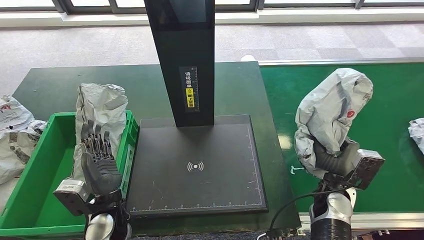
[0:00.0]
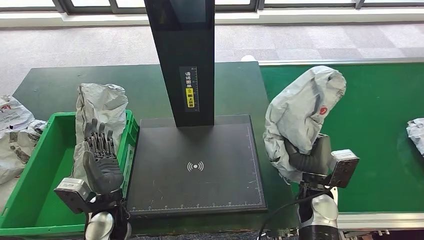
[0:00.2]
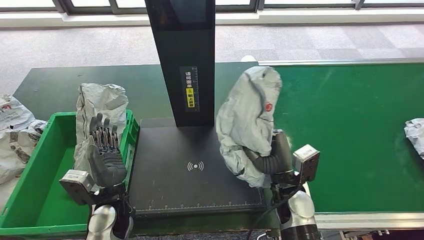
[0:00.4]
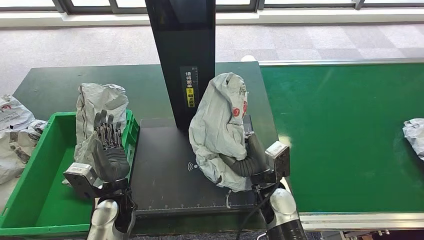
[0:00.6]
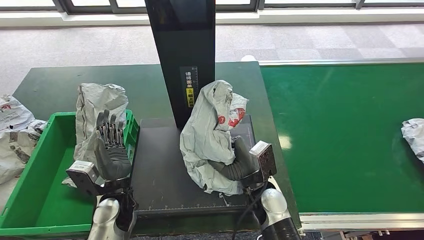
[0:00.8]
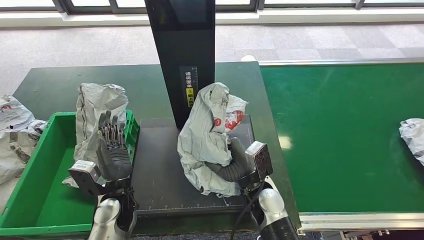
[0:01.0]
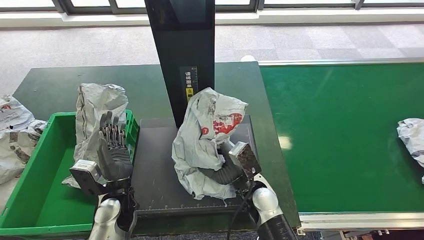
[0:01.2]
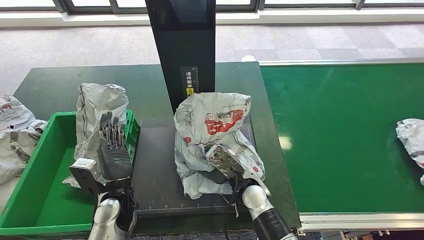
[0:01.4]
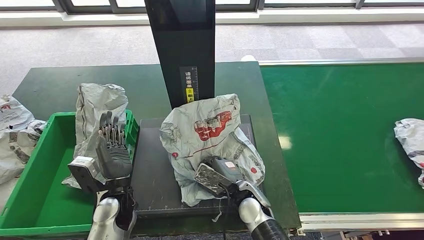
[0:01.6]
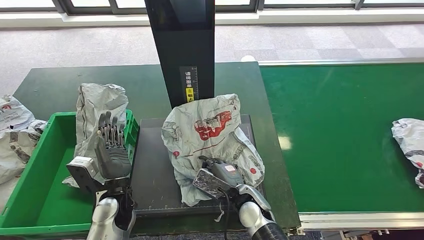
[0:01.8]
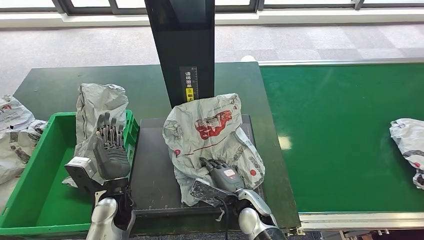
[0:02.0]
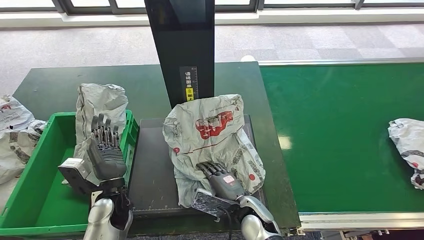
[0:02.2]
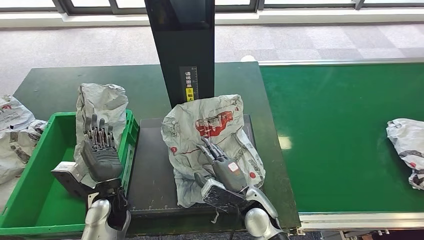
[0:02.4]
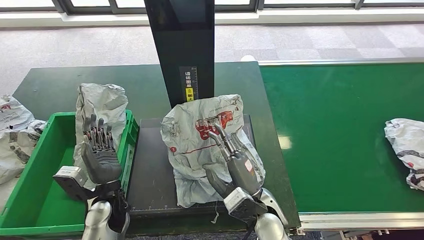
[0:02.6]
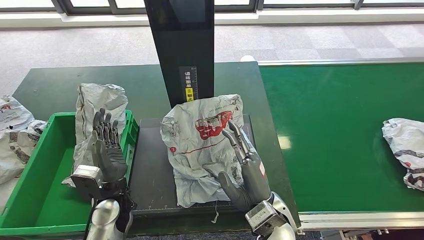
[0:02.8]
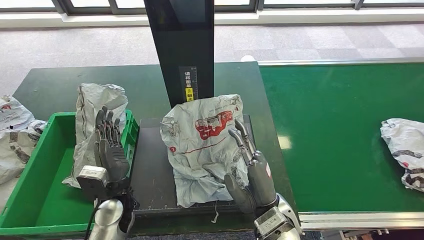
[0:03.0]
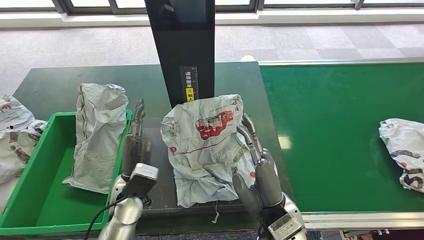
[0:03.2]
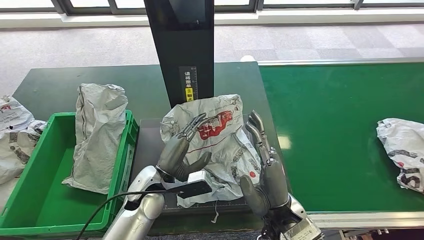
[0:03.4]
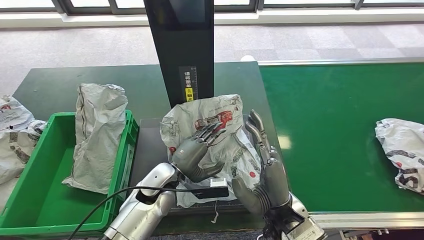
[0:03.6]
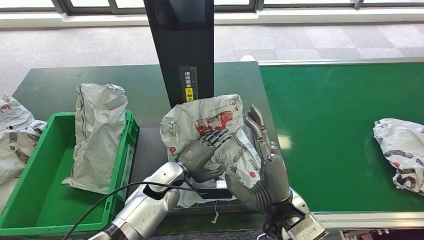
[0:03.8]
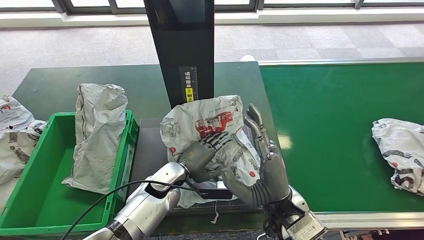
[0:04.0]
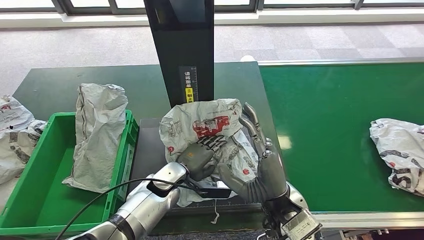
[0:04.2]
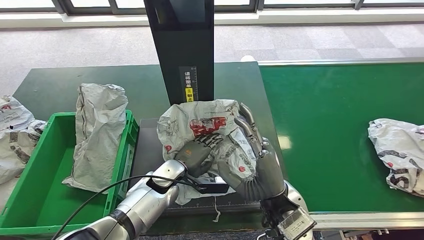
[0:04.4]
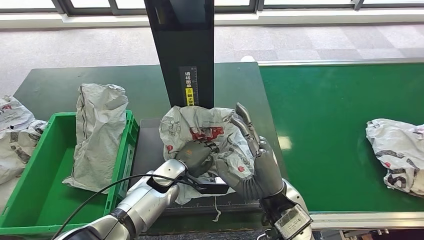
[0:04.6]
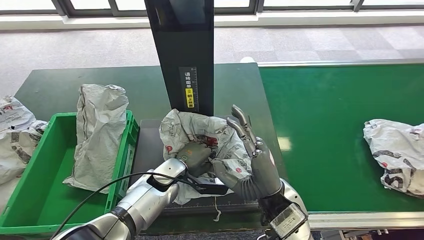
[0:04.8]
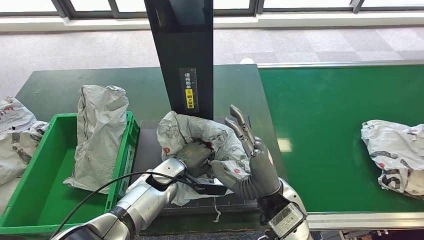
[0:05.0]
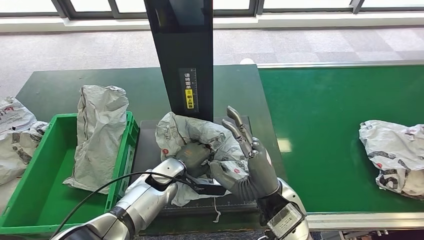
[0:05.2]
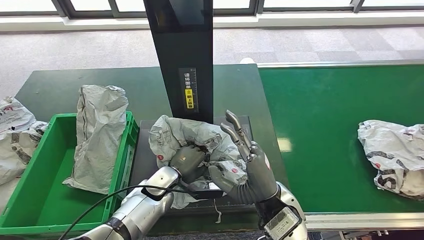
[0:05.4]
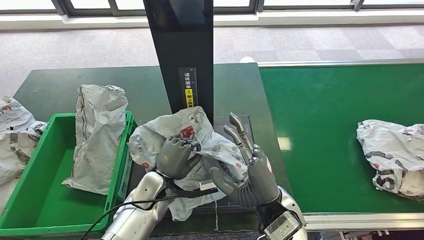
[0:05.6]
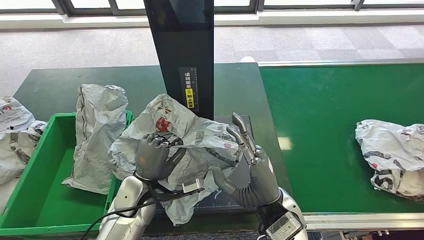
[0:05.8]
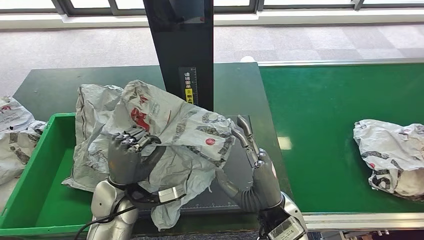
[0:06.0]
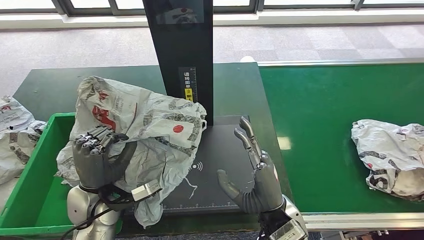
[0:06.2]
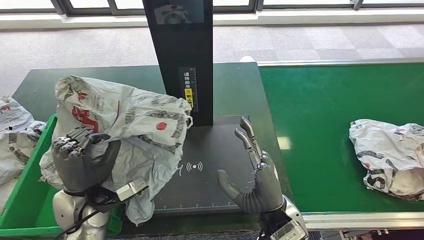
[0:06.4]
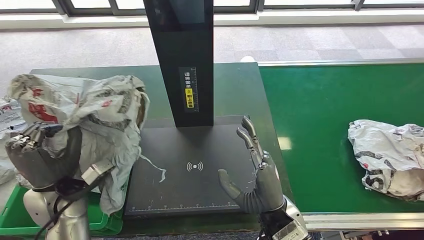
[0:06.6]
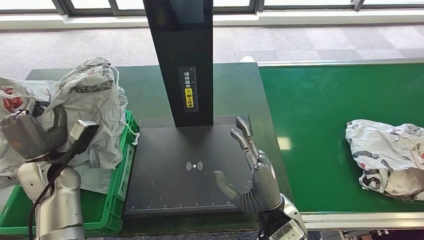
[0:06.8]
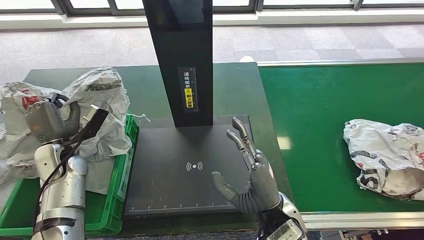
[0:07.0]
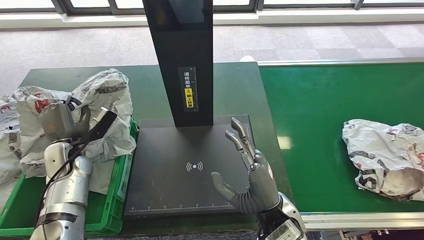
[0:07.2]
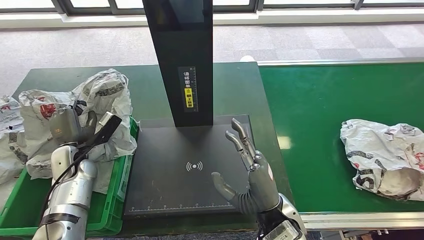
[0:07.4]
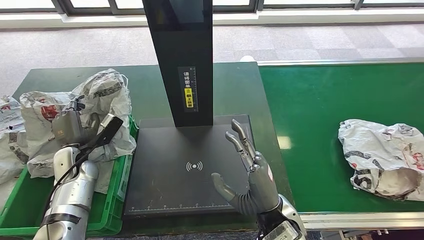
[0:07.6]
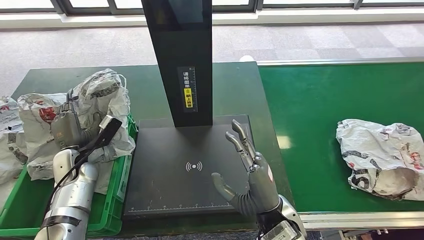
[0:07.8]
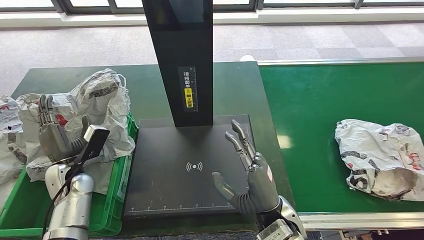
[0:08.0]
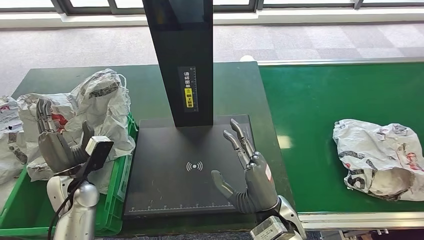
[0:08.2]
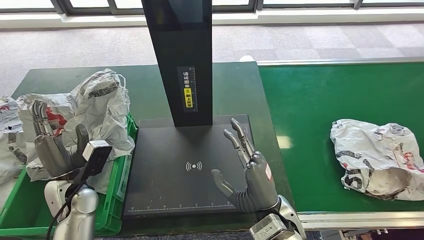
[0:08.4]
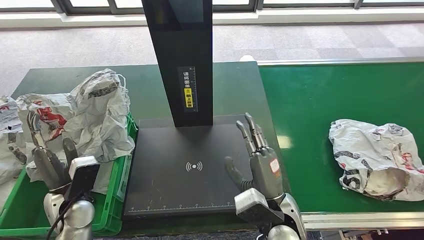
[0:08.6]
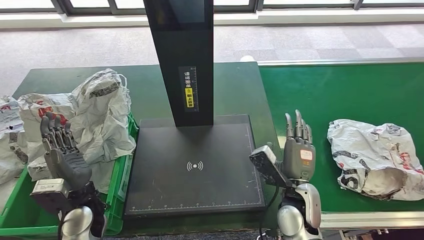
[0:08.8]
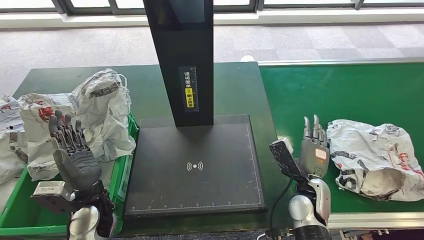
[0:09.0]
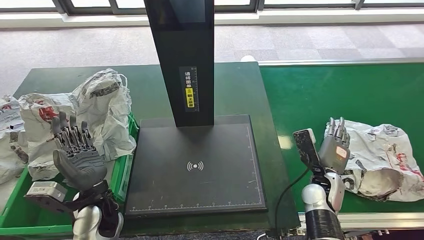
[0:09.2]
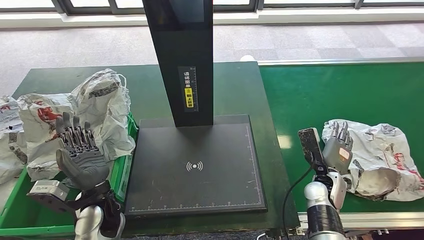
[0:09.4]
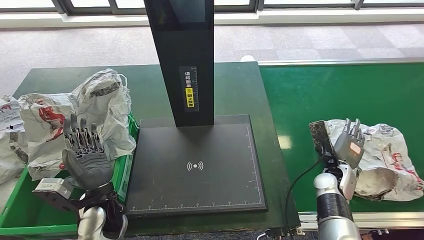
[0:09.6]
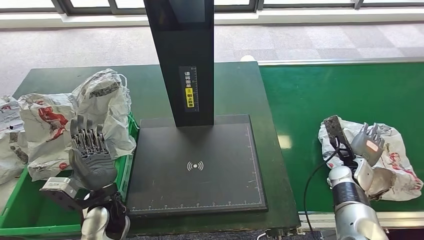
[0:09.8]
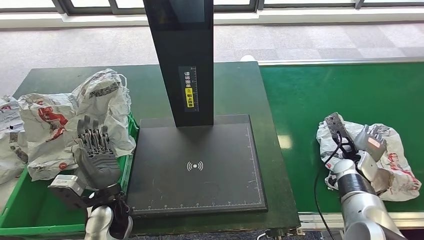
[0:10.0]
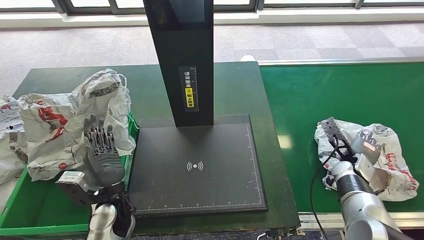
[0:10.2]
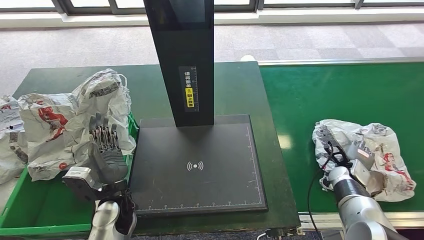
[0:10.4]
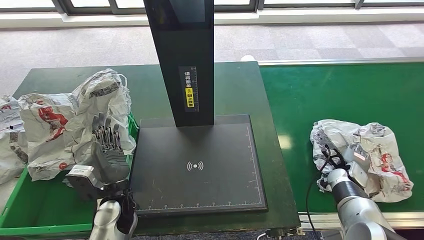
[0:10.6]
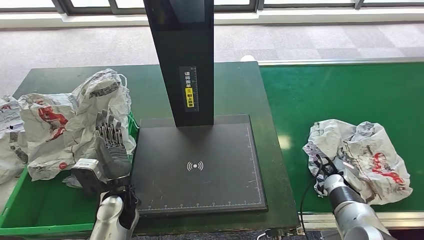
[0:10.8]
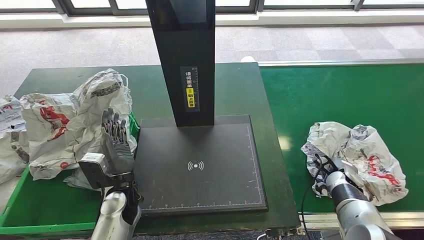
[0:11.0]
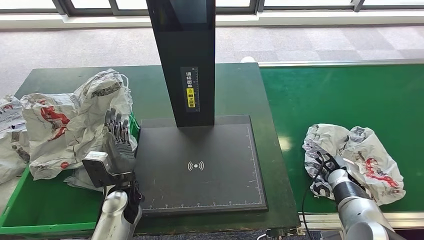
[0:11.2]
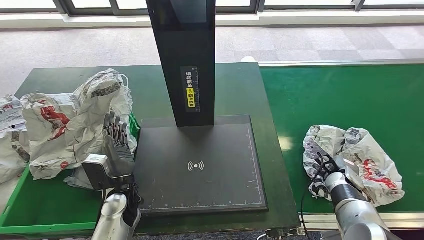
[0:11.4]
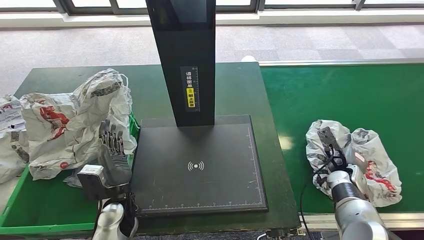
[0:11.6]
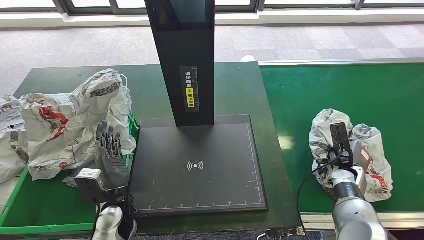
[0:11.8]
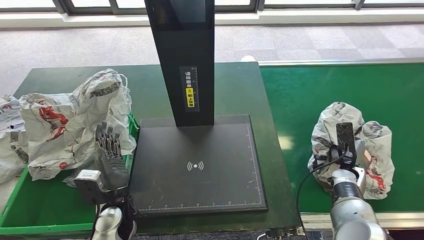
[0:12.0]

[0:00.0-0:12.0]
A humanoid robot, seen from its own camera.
Step, 0.0 to 2.4 s: Place the parcel onto the inbound machine.
Step, 2.6 to 6.8 s: Pick up the parcel from the inbound machine.
Step, 7.2 to 10.0 s: Place the parcel into the delivery box.
1.6 to 3.0 s: The right hand moves upward and backward, roughly 10 cm.
3.0 to 4.4 s: The left hand is displaced to the right and forward by approximately 10 cm.
7.6 to 9.0 s: The right hand goes about 15 cm to the right, forward and downward; the left hand heads backward and to the right, covering approximately 15 cm.
9.0 to 10.4 s: The right hand is displaced to the right and forward by roughly 20 cm.

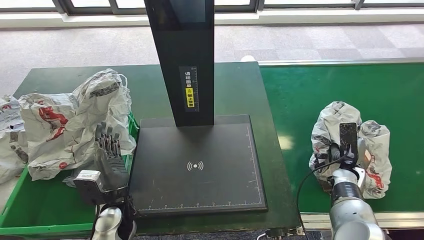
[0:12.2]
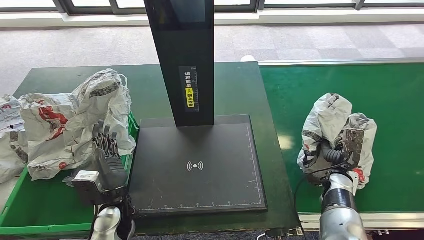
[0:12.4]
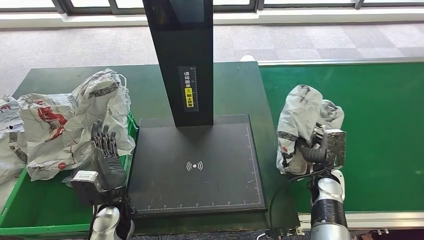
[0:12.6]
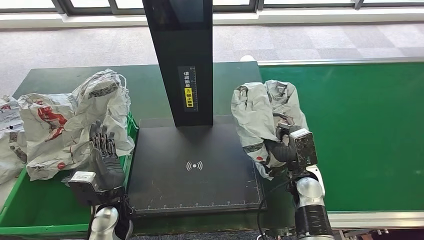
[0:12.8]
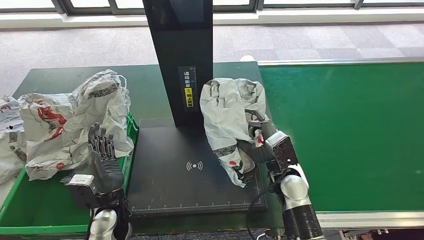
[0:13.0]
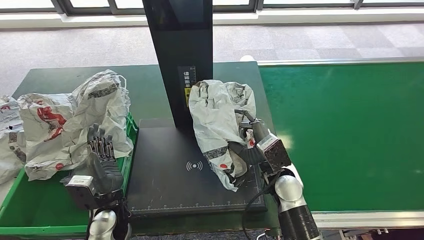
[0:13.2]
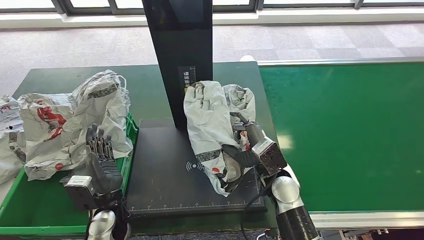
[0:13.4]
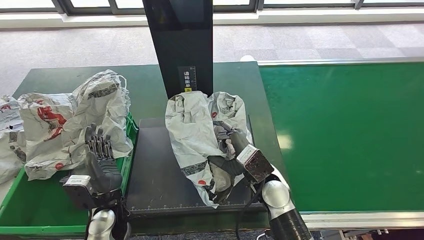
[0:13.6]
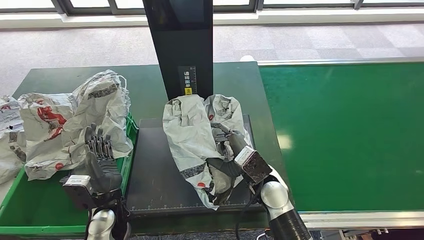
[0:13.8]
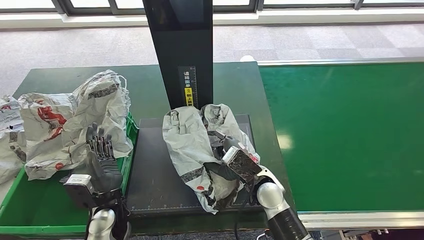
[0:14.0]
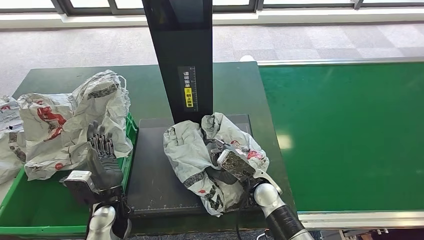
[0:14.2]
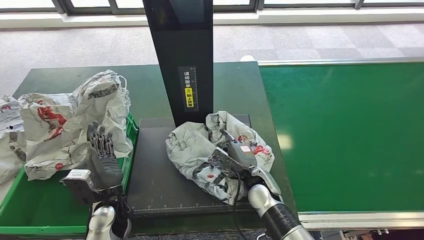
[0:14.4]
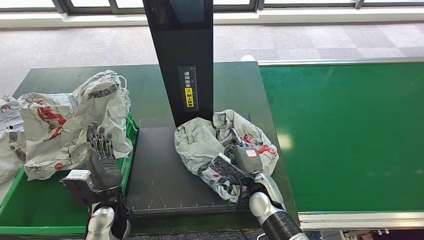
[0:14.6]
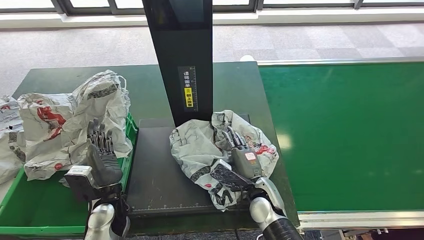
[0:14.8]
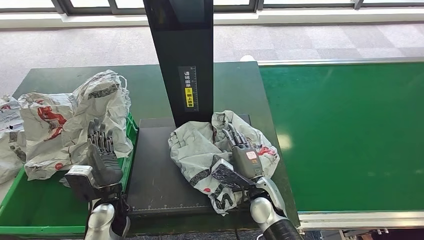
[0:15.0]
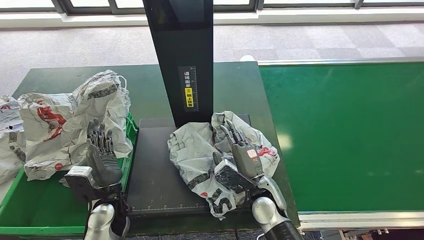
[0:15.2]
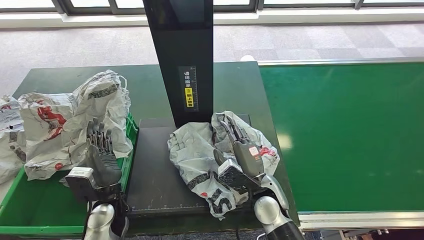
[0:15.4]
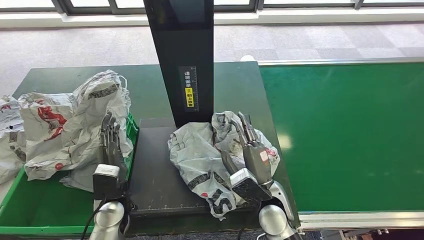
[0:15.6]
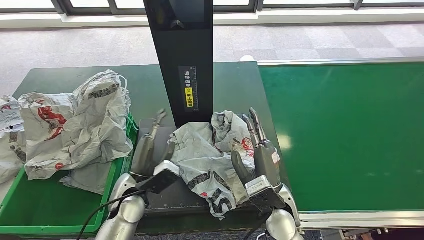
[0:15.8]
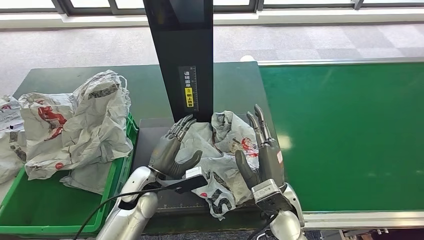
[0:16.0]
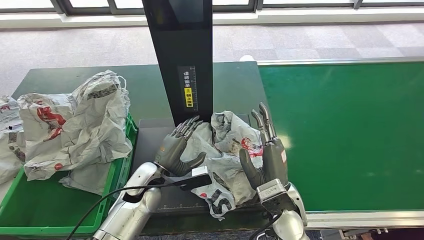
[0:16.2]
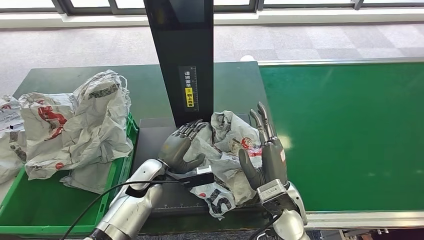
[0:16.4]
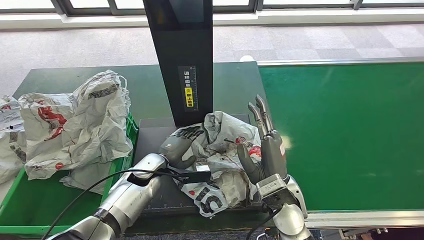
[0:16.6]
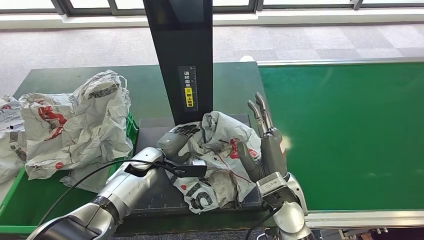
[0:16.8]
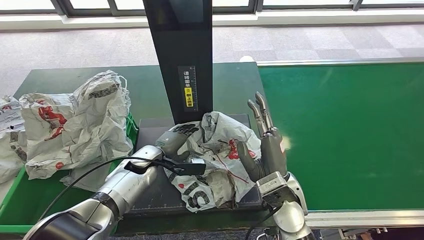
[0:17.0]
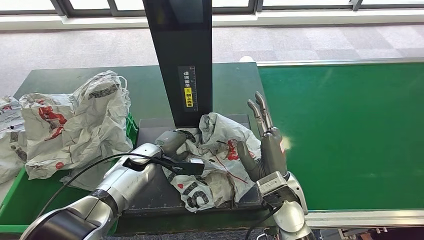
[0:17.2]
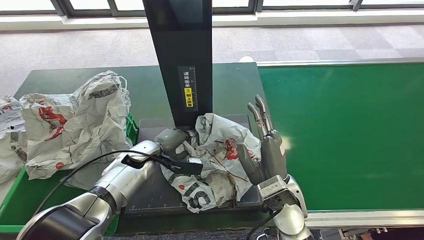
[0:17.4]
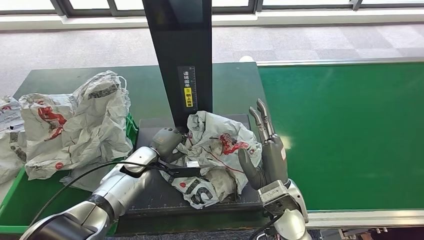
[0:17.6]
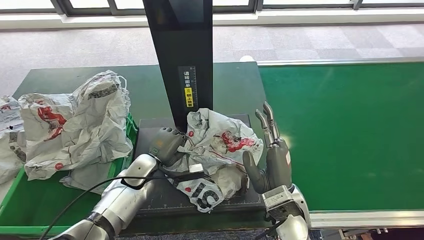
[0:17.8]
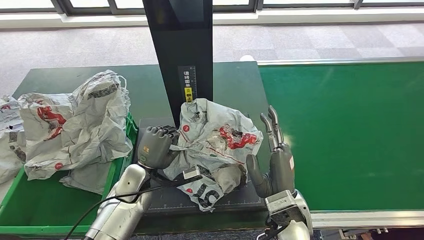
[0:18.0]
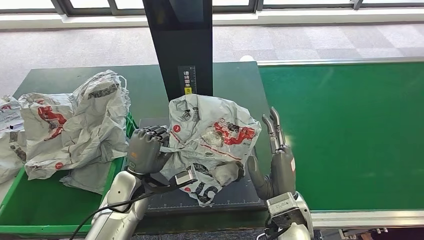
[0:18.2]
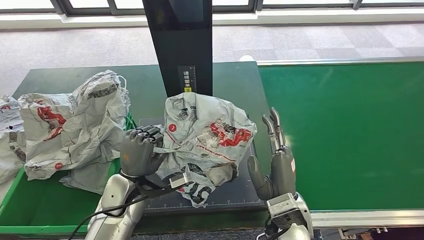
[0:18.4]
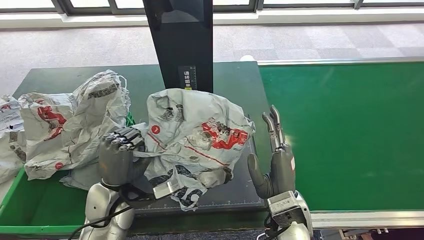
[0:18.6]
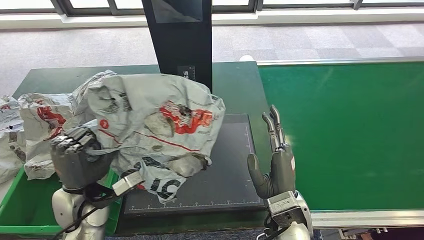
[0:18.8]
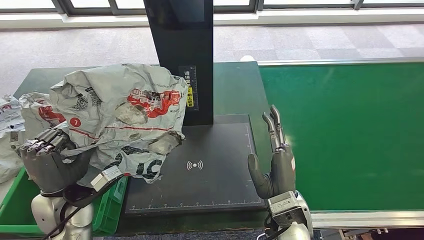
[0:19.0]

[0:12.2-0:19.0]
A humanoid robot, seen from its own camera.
Step, 12.2 to 15.4 s: Pick up the parcel from the conveyor belt.
Step, 15.6 to 18.8 s: Place the parcel onto the inbound machine.
13.6 to 15.0 s: The right hand goes about 5 cm downward.
15.0 to 16.2 s: The right hand is displaced upward by approximately 10 cm; the left hand goes roughly 10 cm to the right and forward.
